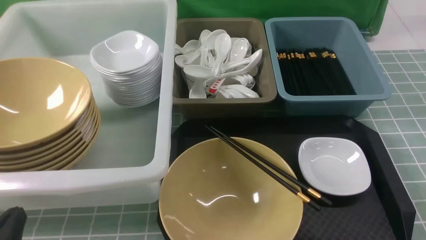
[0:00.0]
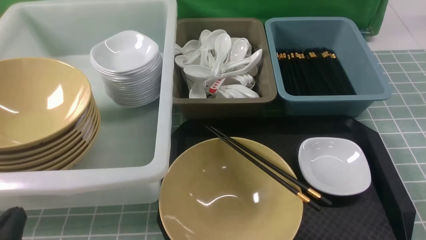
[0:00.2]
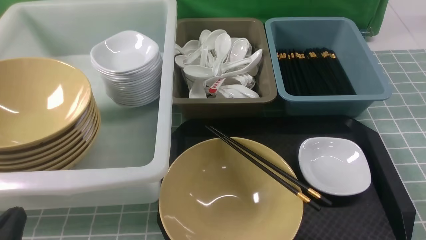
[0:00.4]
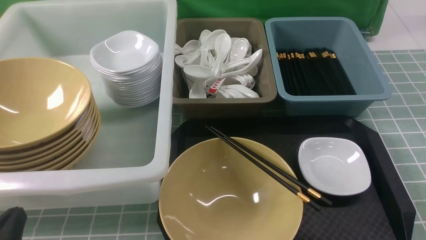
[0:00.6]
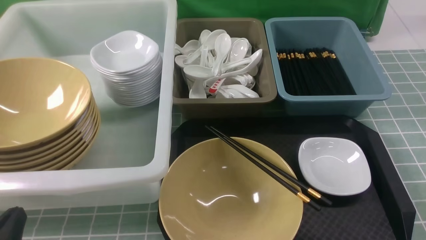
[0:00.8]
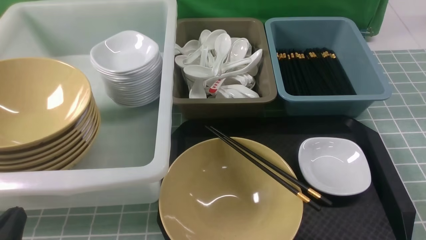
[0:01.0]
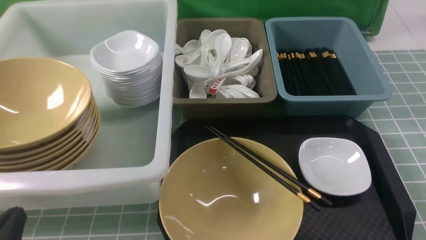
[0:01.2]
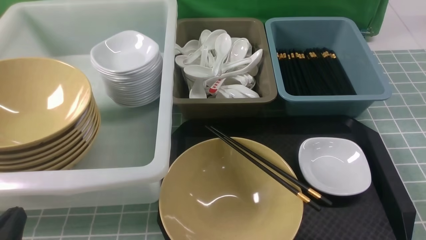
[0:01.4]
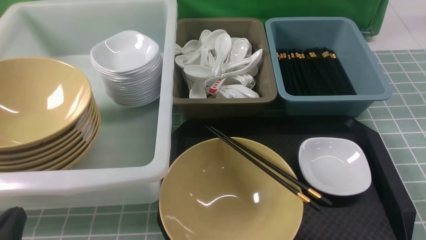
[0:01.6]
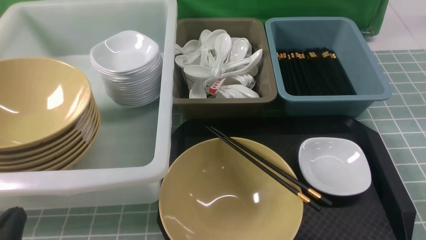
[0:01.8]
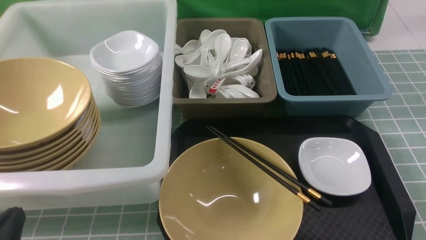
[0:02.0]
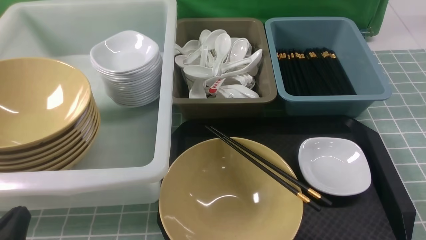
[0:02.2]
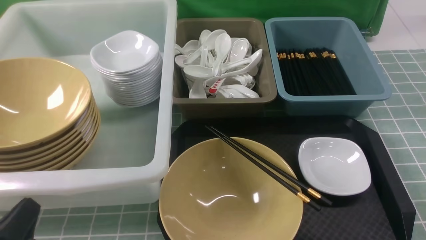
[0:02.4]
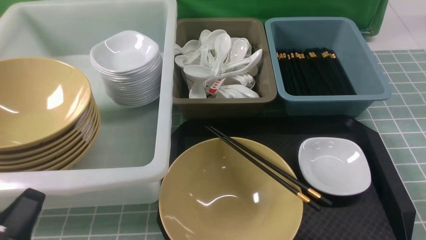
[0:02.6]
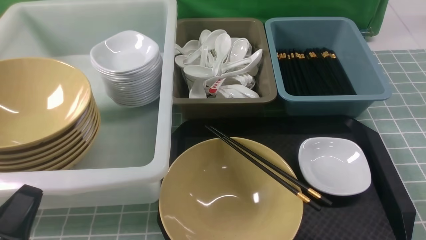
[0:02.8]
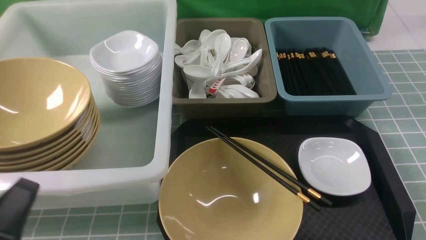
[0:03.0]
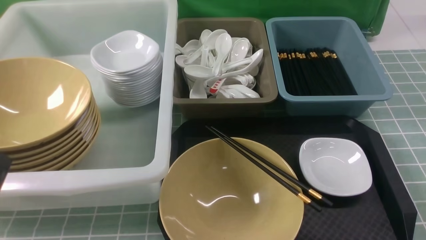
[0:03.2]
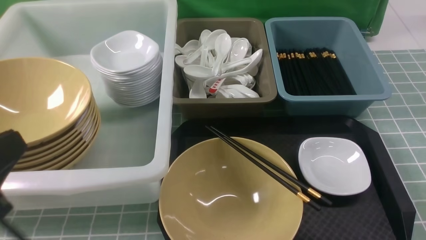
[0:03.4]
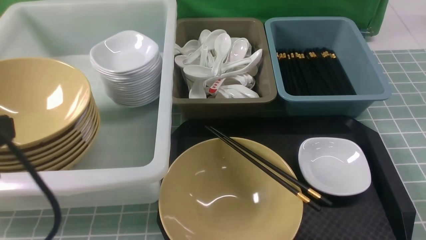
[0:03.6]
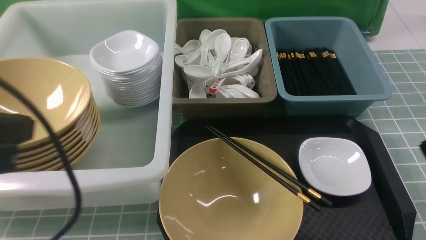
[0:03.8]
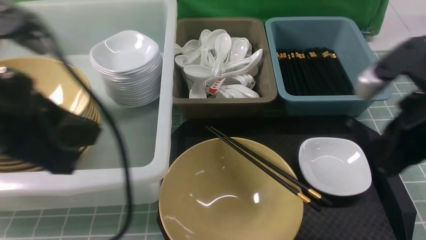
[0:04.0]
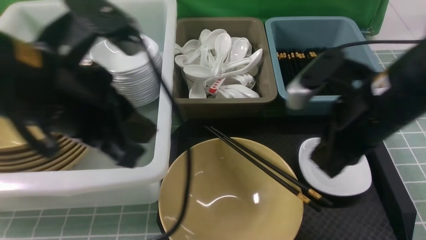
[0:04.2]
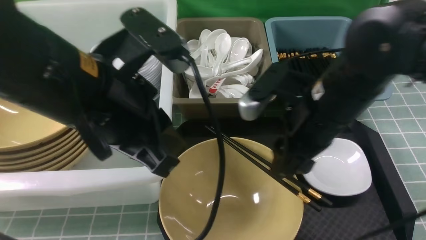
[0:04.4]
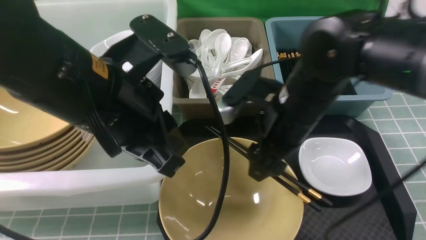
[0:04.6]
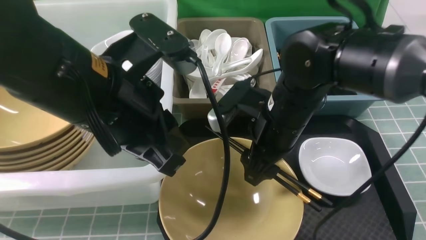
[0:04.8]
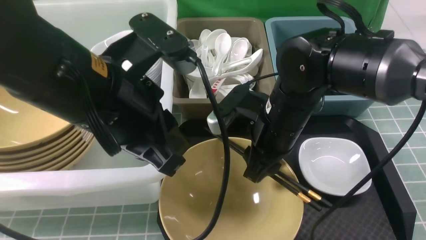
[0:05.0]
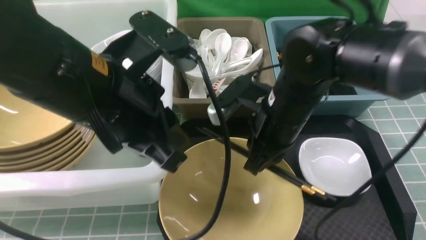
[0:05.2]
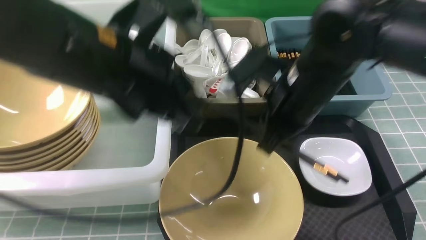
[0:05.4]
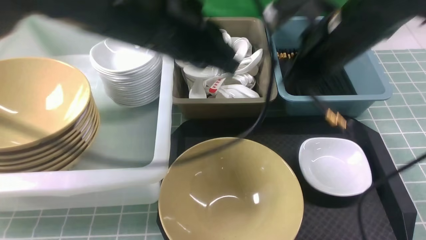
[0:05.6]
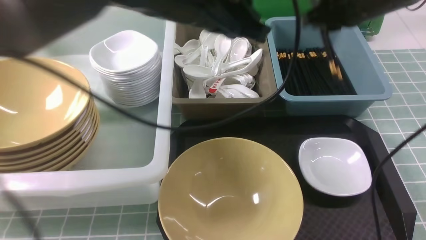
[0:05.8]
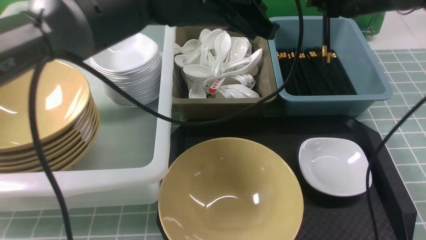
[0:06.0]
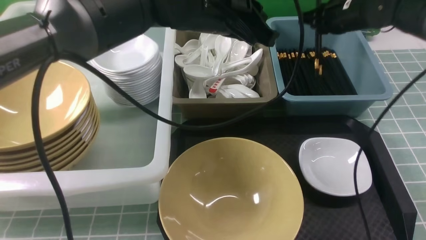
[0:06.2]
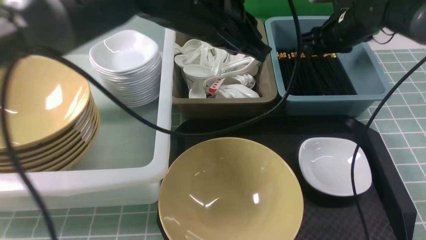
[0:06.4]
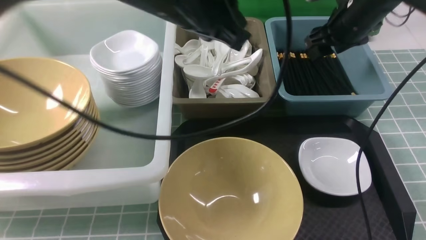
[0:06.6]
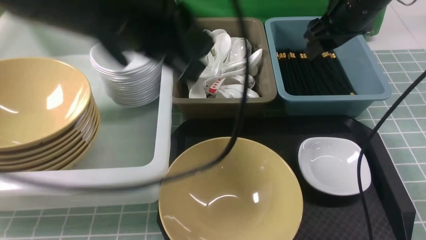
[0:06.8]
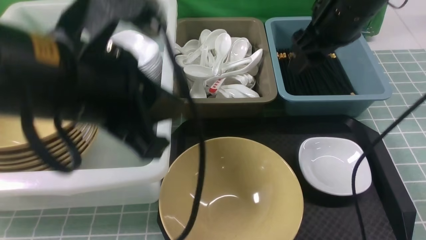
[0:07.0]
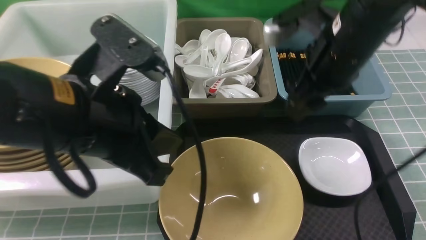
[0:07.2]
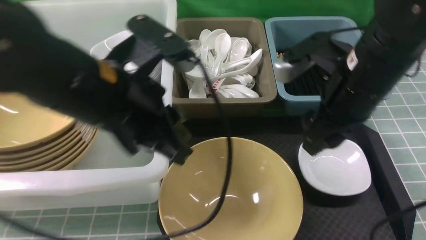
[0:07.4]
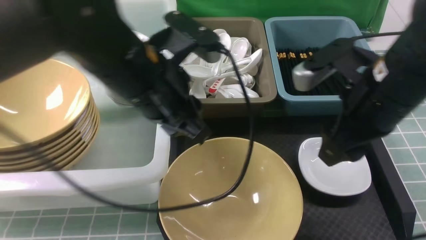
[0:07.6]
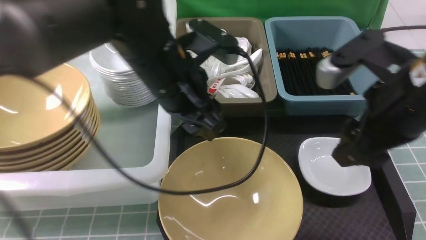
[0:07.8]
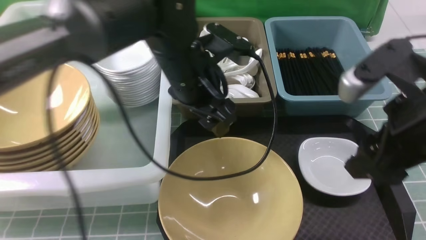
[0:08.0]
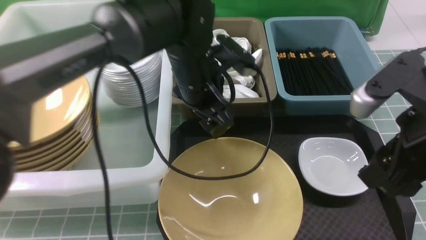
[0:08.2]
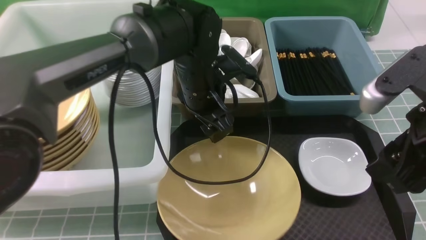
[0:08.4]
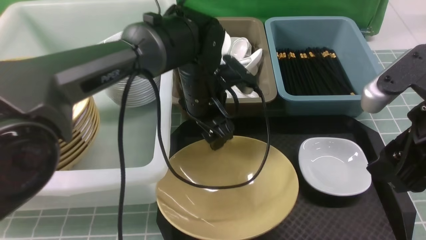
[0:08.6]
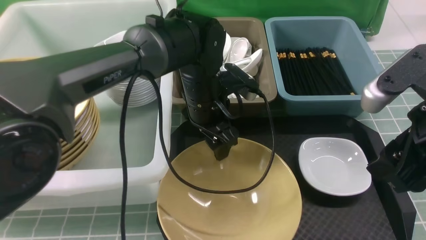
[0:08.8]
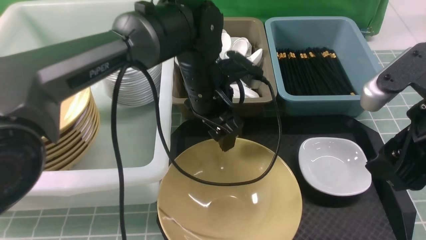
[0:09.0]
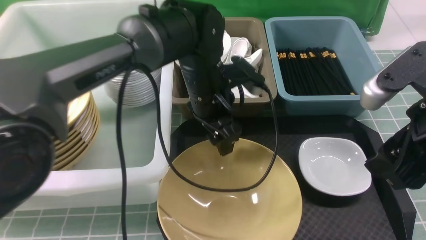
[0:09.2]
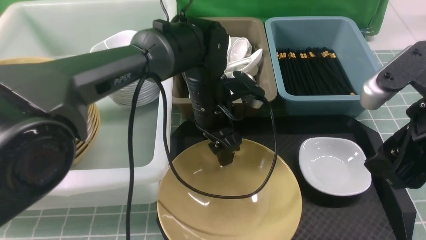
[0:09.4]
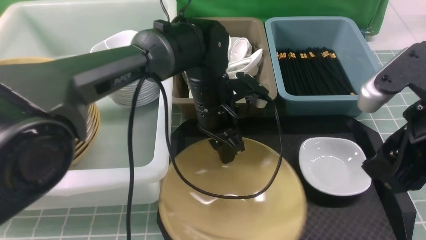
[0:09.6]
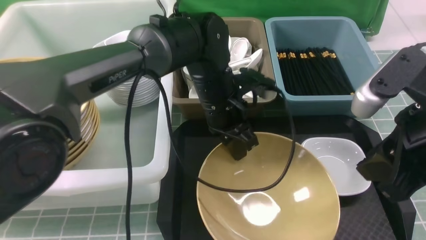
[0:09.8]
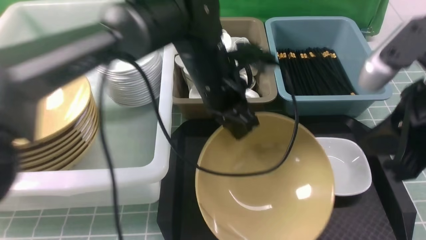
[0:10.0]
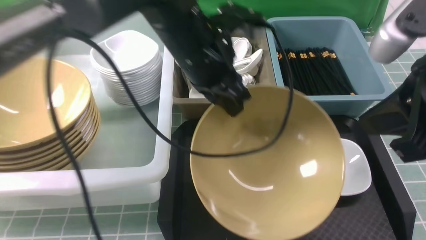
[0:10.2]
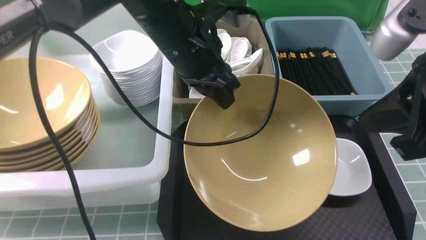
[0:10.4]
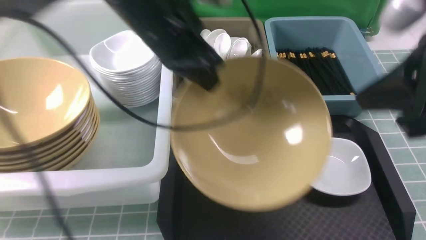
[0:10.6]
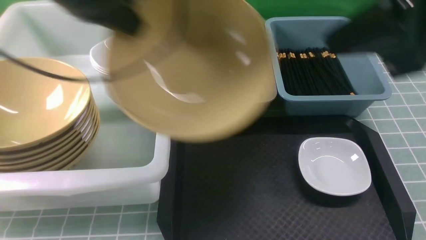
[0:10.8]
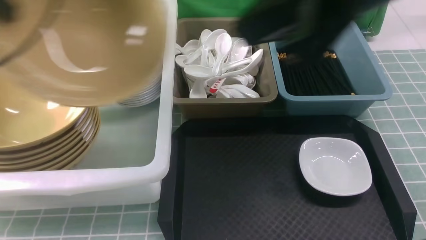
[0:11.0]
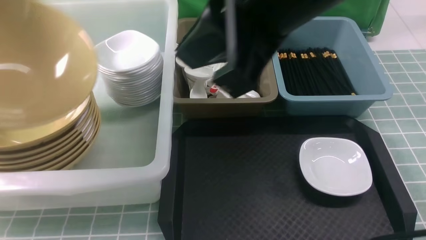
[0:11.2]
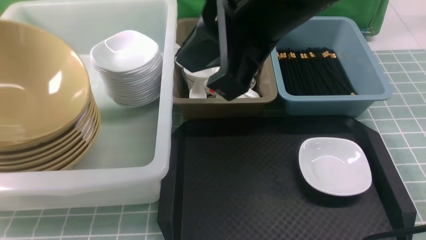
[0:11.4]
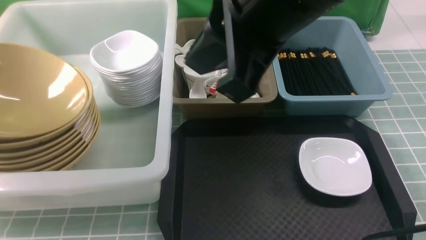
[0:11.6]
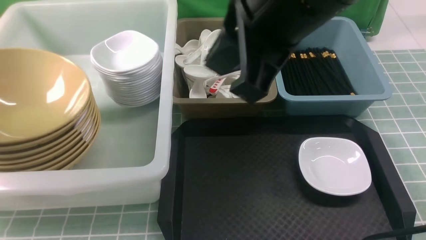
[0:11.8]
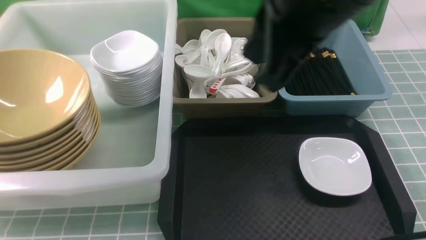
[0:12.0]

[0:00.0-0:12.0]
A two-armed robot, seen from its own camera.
Task of the whole recording: on blue table put chopsticks spoon bowls plates into blue grey white boxes.
Step, 0:00.0 to 0:05.2: use the right arm to grab the chopsticks.
Step, 0:05.4 to 0:06.4: use the right arm to put the chopsticks into the small storage box on the right.
Step, 0:06.6 to 0:09.8: use the left arm to grab the yellow noodle bowl on the left.
Step, 0:10.2 to 0:11.8: use the left arm to put the noodle bowl into the large storage box on the left.
0:00.0 to 0:01.6: Neither gripper changes place.
0:01.6 to 0:03.0: The left gripper is displaced upward by roughly 5 cm.
0:03.0 to 0:04.4: The right gripper is displaced forward, to the left and upward by about 30 cm, and opens, while the left gripper shifts approximately 25 cm forward, upward and to the right.
0:04.4 to 0:06.0: Both grippers move forward and to the right, approximately 20 cm. The right gripper closes up.
0:06.0 to 0:07.6: The right gripper moves backward, about 20 cm, and opens. Meanwhile the left gripper moves backward and to the left, approximately 10 cm, and opens.
0:07.6 to 0:09.0: The right gripper moves backward, about 5 cm. Meanwhile the left gripper moves forward, downward and to the right, roughly 15 cm, and opens its fingers.
0:09.0 to 0:10.4: The left gripper is displaced upward by roughly 10 cm, and closes up, while the right gripper goes about 5 cm upward, and closes its fingers.
0:10.4 to 0:12.0: The right gripper heads to the left, covering some 10 cm; the left gripper is displaced to the left by roughly 30 cm, and opens.

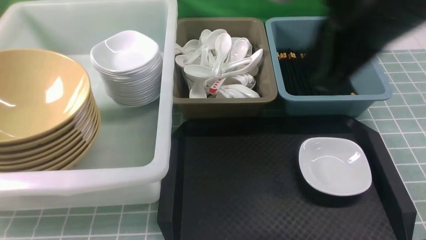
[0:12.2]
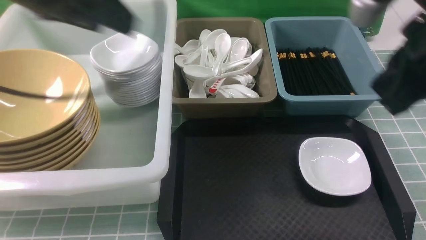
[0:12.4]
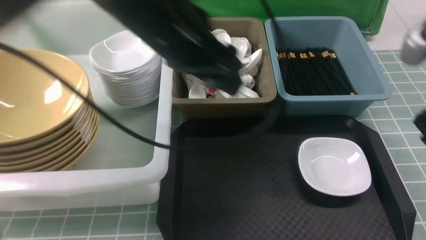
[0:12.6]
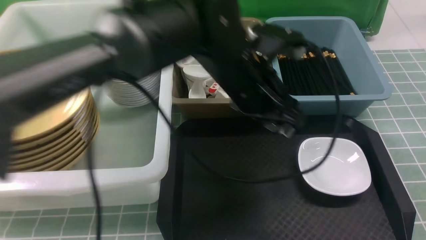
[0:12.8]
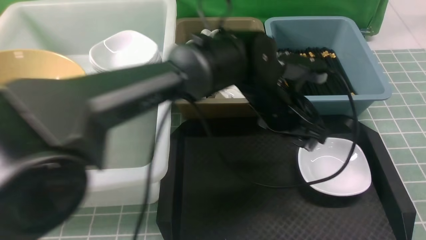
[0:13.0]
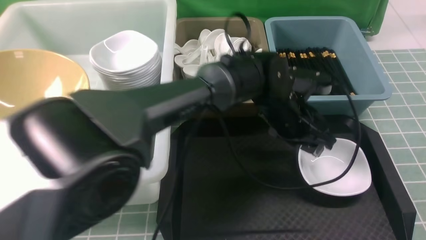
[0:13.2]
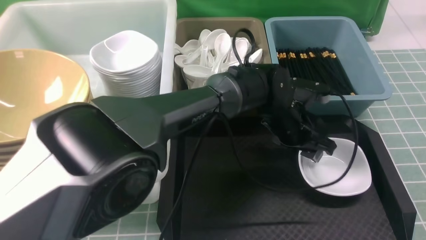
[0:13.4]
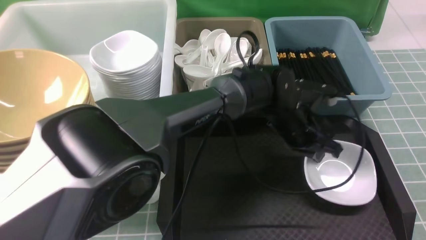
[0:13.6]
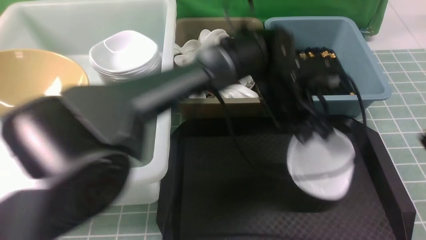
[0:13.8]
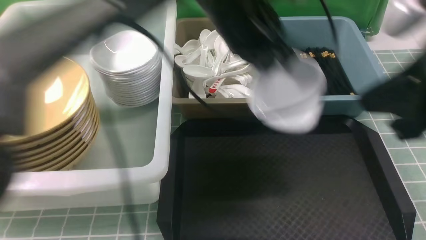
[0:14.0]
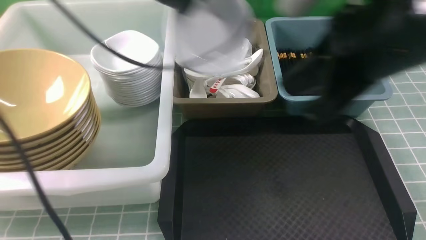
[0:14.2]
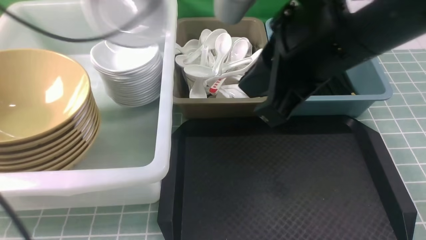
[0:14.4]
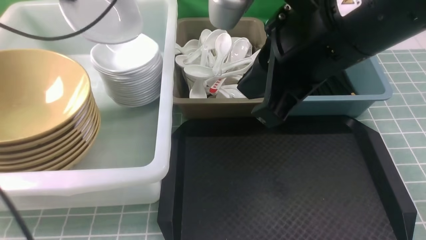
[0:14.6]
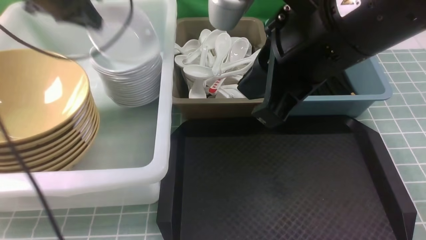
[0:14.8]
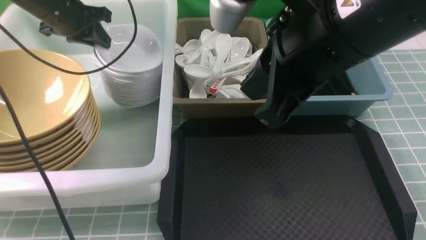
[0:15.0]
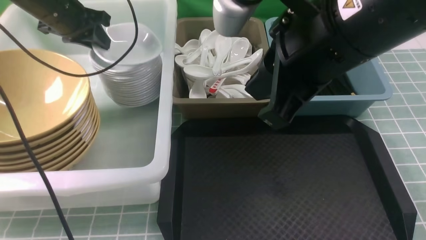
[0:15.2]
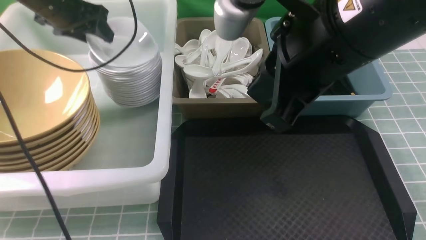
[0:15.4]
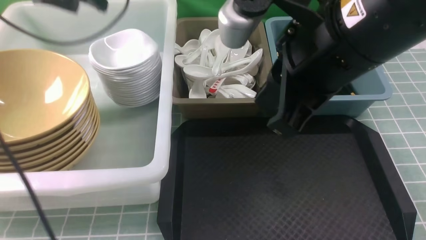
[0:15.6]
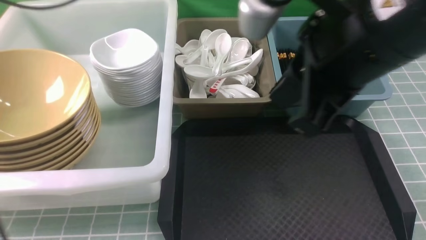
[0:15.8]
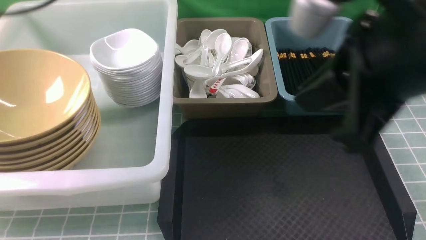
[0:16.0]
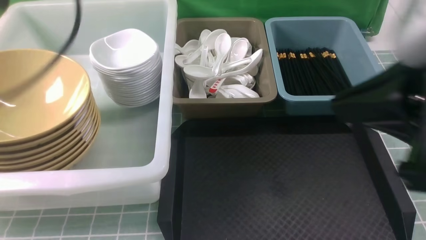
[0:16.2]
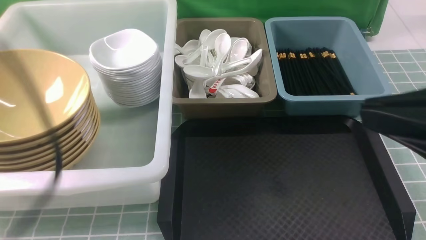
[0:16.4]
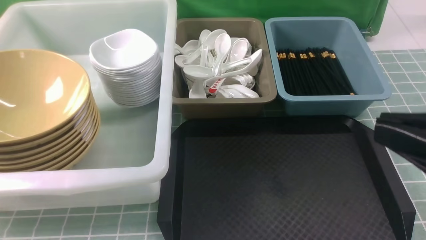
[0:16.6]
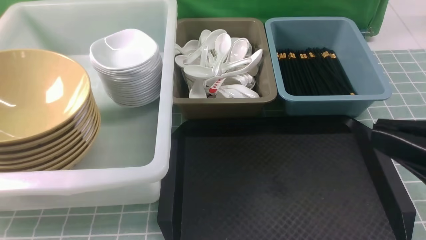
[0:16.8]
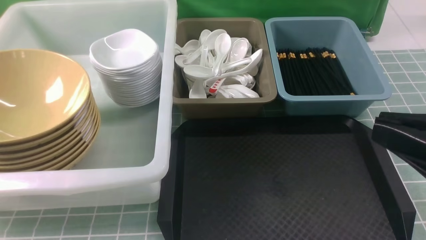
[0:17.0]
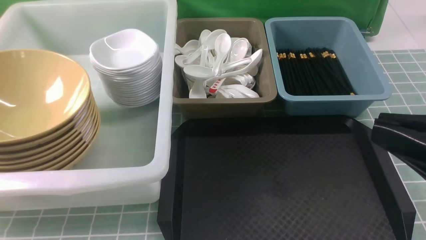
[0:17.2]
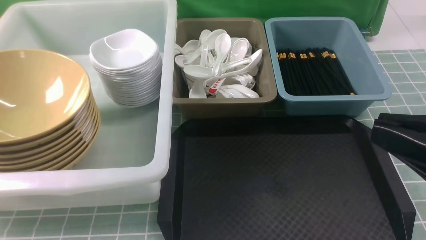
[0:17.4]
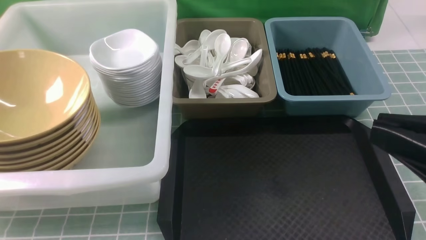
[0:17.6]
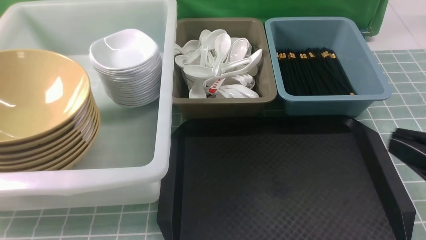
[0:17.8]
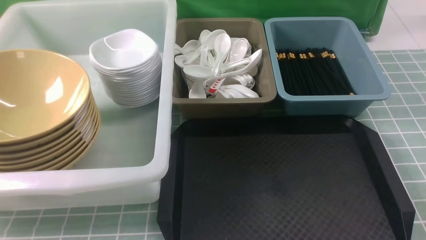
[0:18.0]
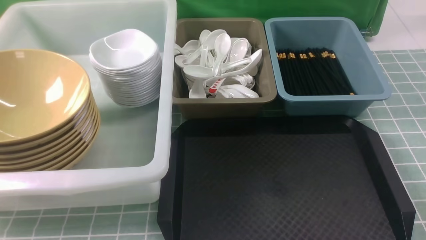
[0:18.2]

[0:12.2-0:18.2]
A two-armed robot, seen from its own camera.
Task of the whole recording: on blue table put chopsticks spoon bowls plates into blue grey white boxes.
Step, 0:12.2 to 0:13.6: use the left arm to grab the plate.
Step, 0:14.0 to 0:15.4: use the left arm to put the plate into the large storage box on the left.
0:12.2 to 0:13.8: The right gripper moves to the right and backward, roughly 10 cm. The left gripper heads to the right and downward, covering approximately 40 cm, and closes its fingers.
0:13.8 to 0:15.2: The right gripper travels to the left by some 15 cm, while the left gripper is displaced to the left by some 35 cm, and opens its fingers.
0:15.2 to 0:16.6: The right gripper travels to the right and backward by roughly 15 cm. The left gripper is displaced backward by about 40 cm, and closes.
0:16.6 to 0:18.2: The right gripper shifts approximately 20 cm downward and to the right.
